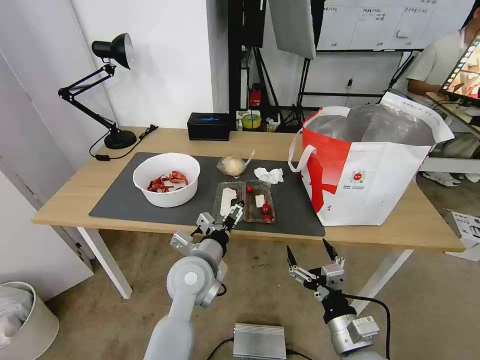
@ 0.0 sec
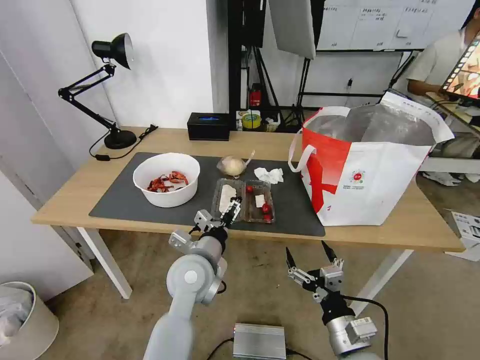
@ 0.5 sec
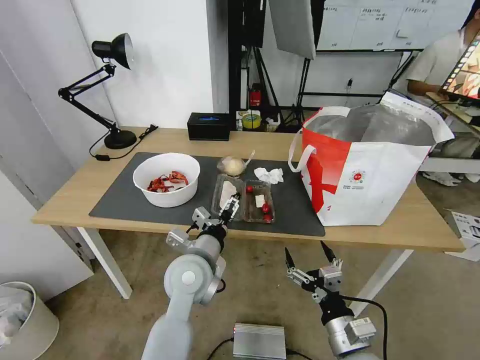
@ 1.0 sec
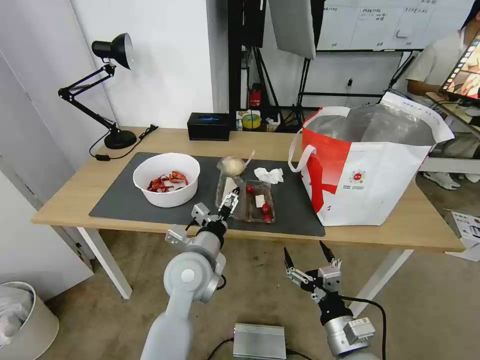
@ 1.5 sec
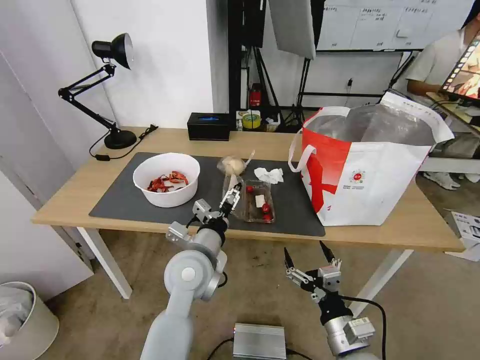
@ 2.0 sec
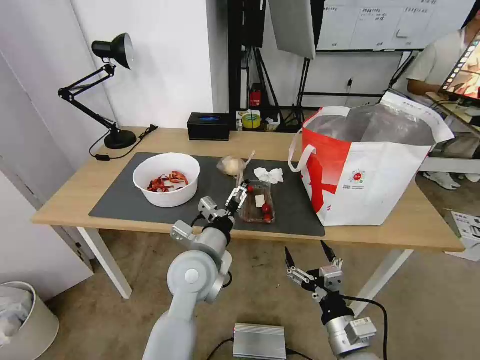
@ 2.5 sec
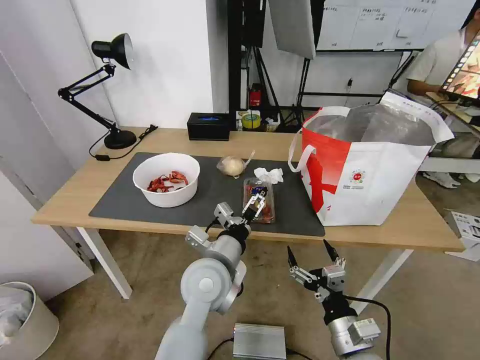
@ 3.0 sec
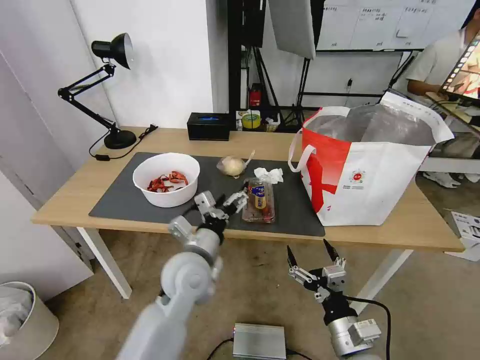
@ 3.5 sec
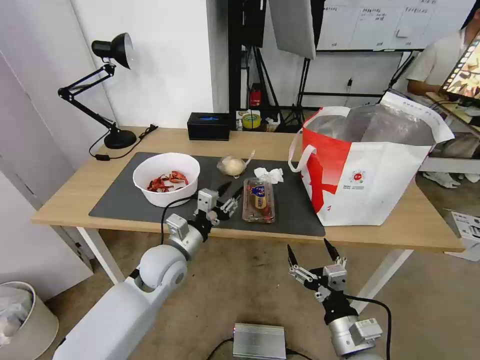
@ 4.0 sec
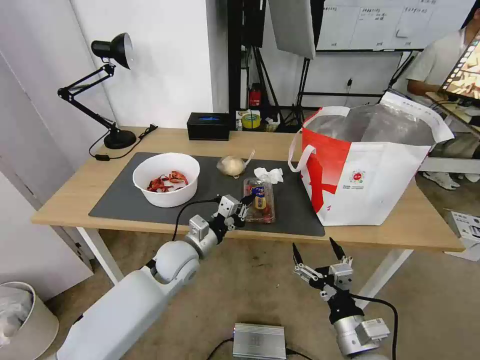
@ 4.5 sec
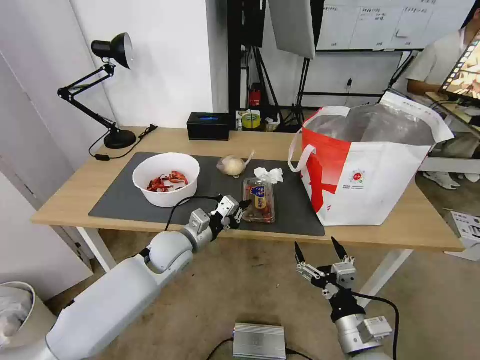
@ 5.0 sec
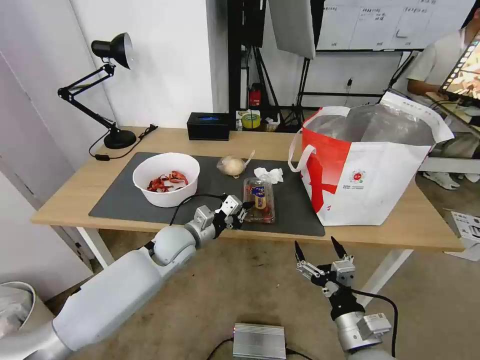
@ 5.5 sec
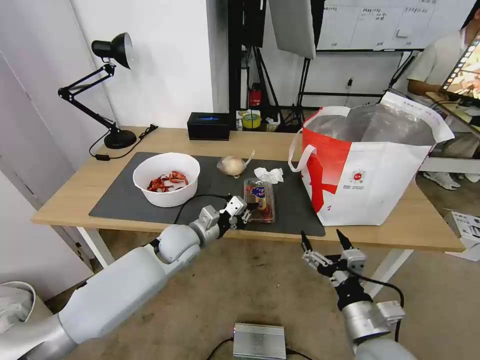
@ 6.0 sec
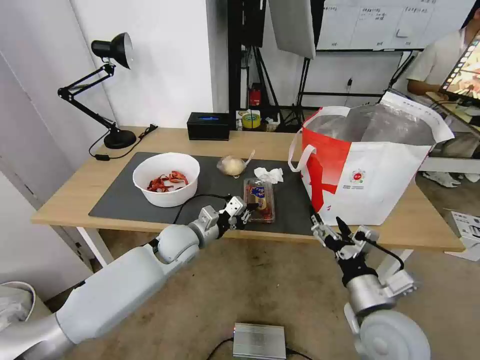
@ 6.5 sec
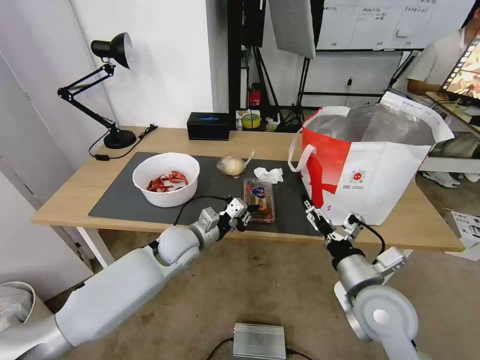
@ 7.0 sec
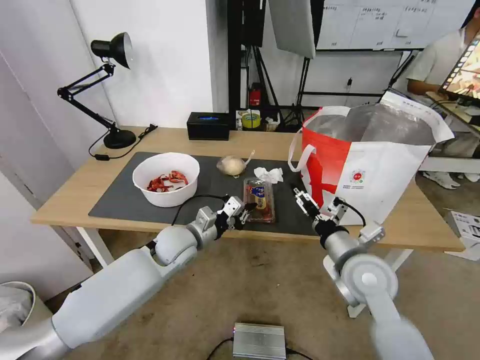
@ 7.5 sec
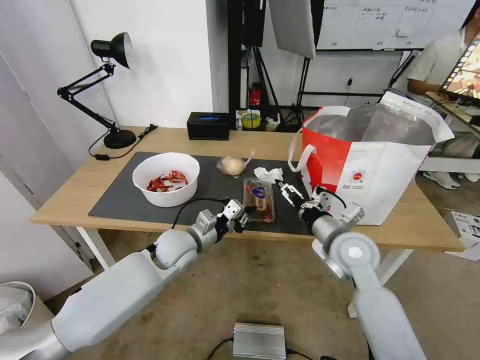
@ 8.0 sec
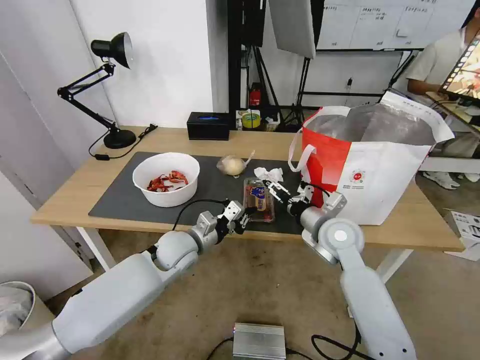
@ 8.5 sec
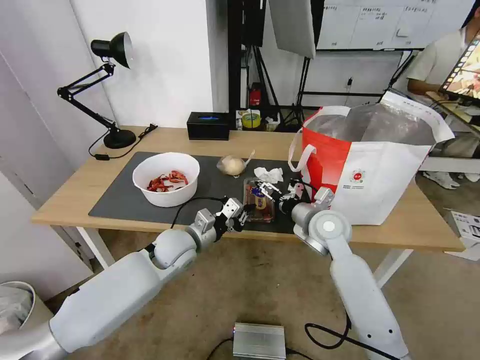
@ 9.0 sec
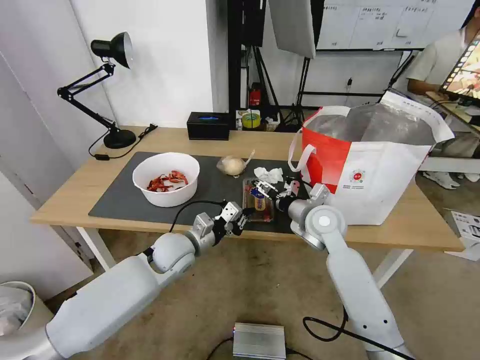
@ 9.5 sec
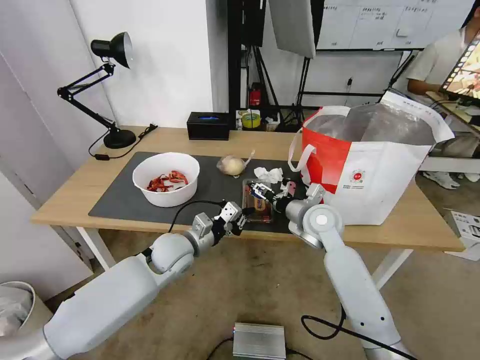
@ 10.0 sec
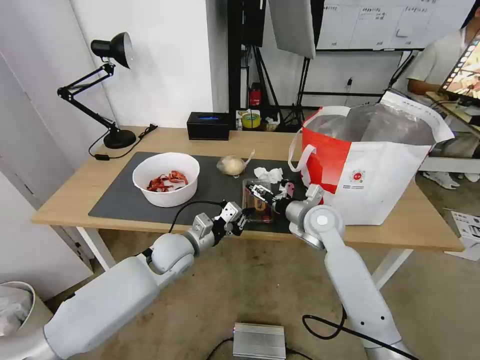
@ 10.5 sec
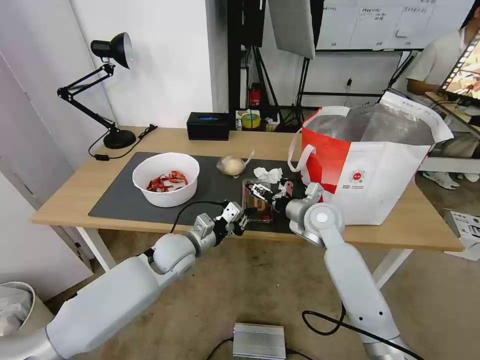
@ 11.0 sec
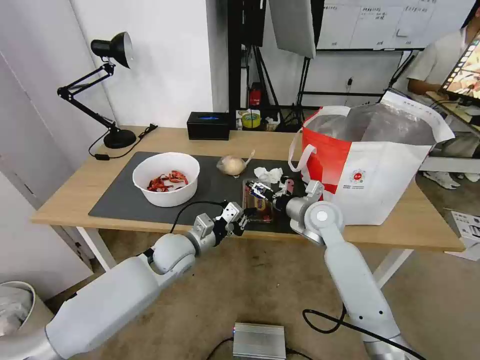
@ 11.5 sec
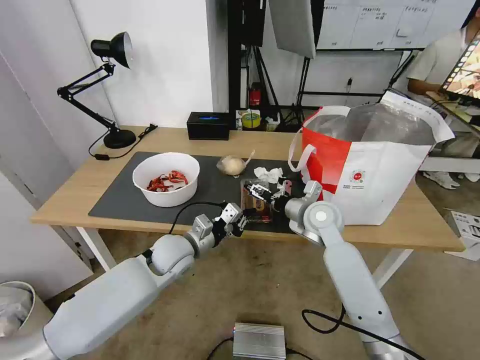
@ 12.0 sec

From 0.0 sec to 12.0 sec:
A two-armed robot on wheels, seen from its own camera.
Task of the whole recording: Pick up the trash from the table and place it into the takeout bag.
From 0.0 sec to 2.0 sec: The grippers make only small movements.
From 2.0 sec to 4.0 sec: The left gripper shifts about 5 cm to the left, and closes up.
From 4.0 sec to 6.0 sec: The left gripper is displaced forward by roughly 5 cm, and closes its fingers.
From 6.0 sec to 8.0 sec: The right gripper heads forward, covering approximately 20 cm.
From 8.0 sec to 10.0 sec: The right gripper heads forward, covering about 10 cm.
From 10.0 sec to 12.0 sec: The grippers stay close to where they were, moving slightly.

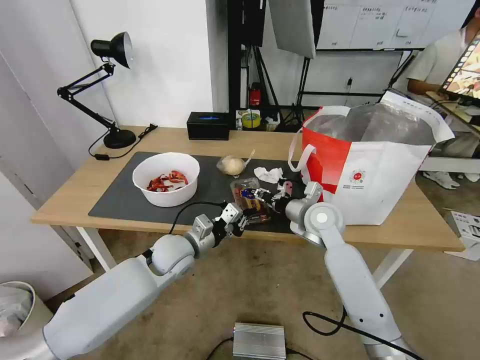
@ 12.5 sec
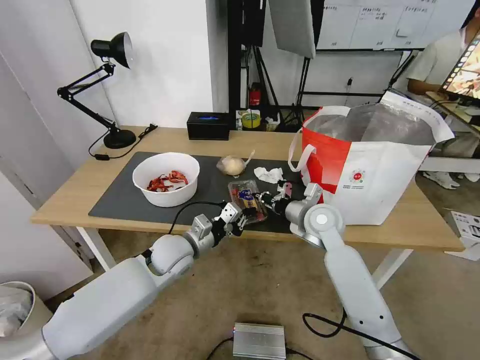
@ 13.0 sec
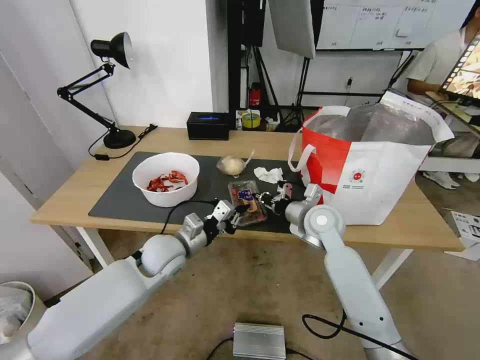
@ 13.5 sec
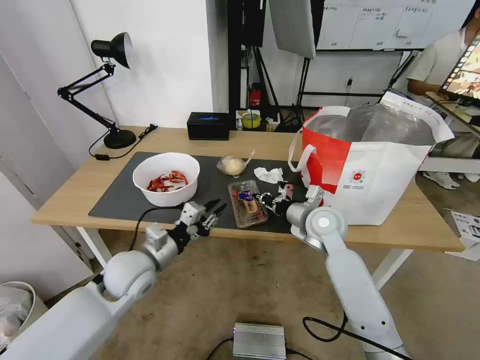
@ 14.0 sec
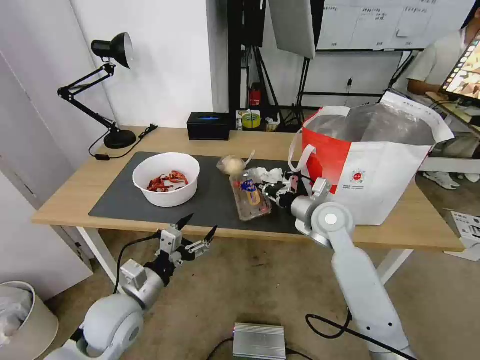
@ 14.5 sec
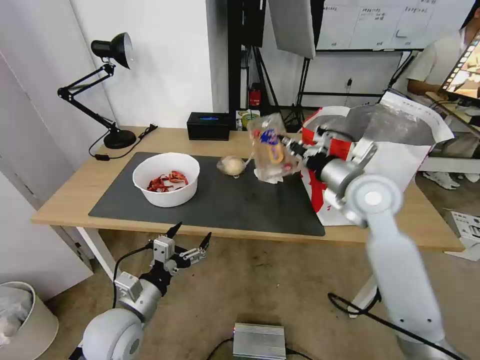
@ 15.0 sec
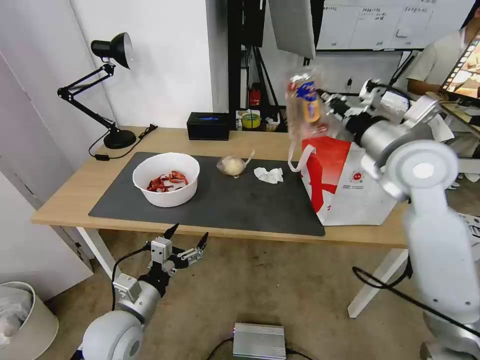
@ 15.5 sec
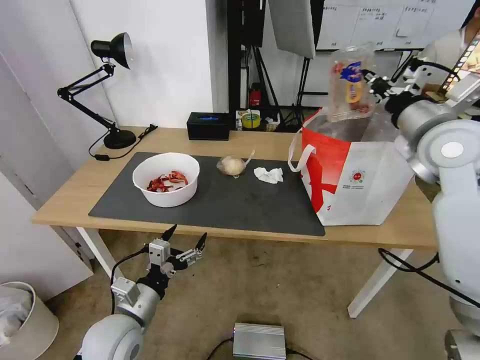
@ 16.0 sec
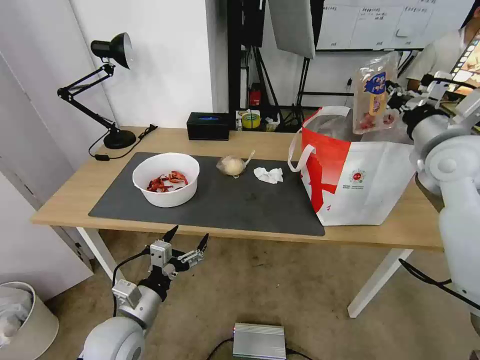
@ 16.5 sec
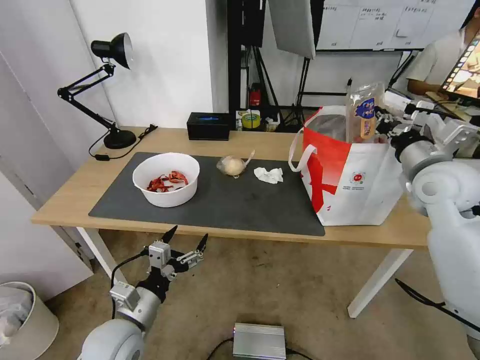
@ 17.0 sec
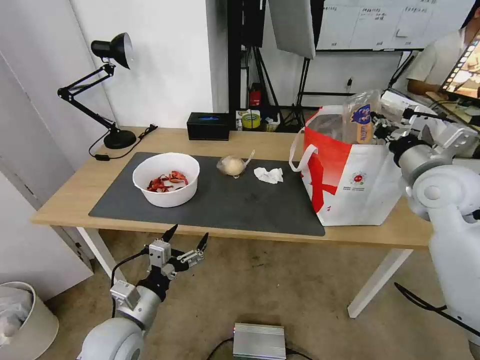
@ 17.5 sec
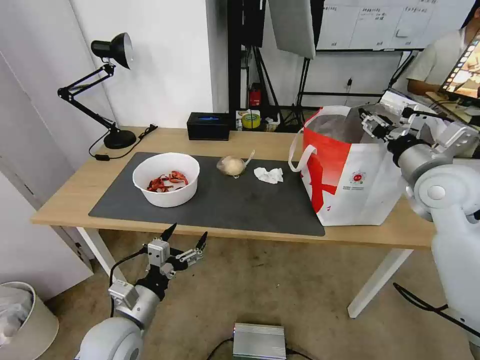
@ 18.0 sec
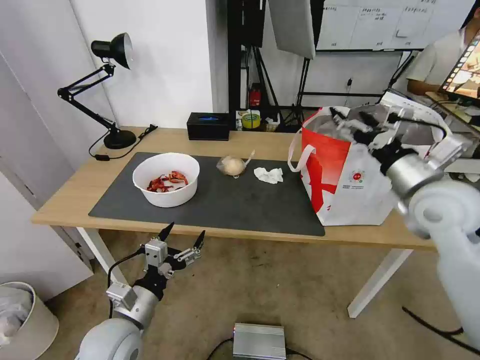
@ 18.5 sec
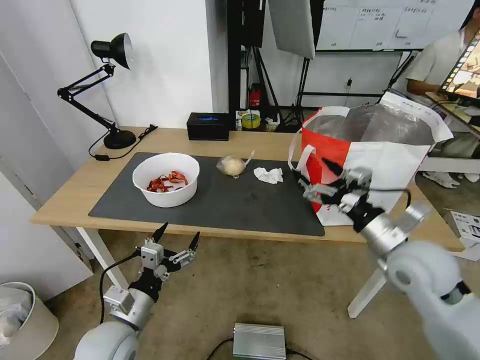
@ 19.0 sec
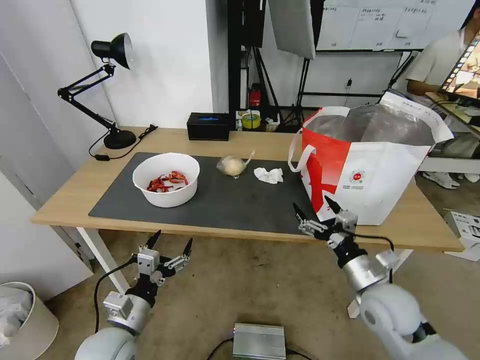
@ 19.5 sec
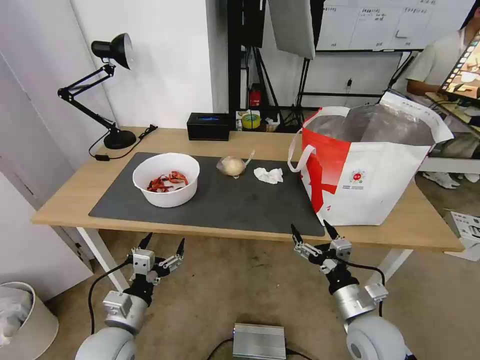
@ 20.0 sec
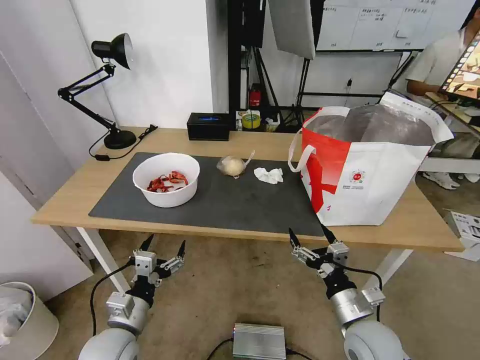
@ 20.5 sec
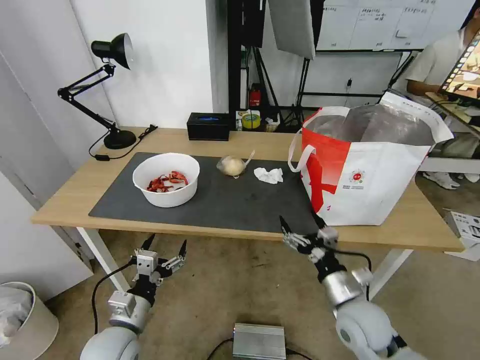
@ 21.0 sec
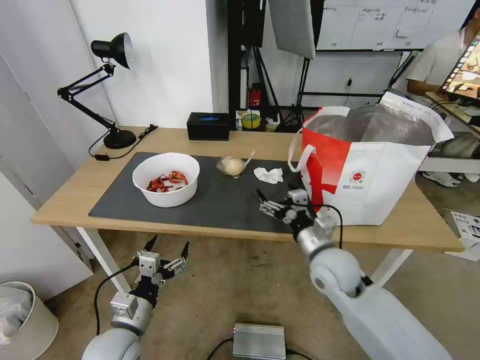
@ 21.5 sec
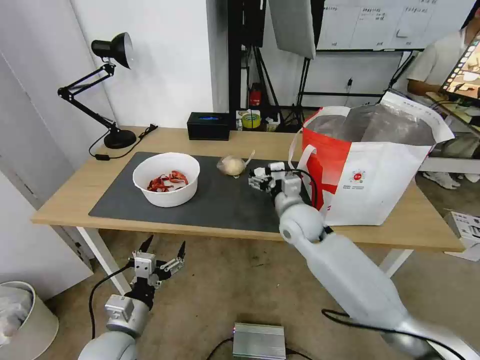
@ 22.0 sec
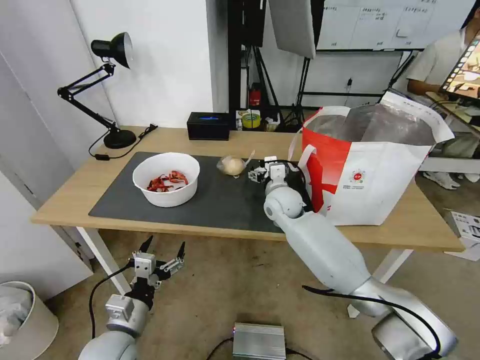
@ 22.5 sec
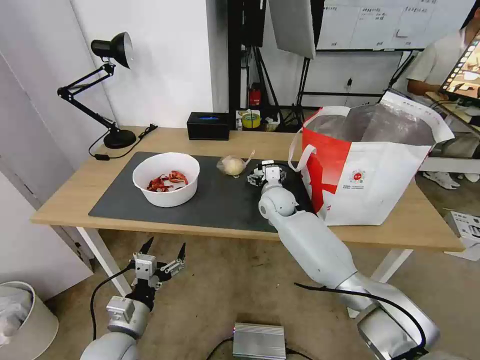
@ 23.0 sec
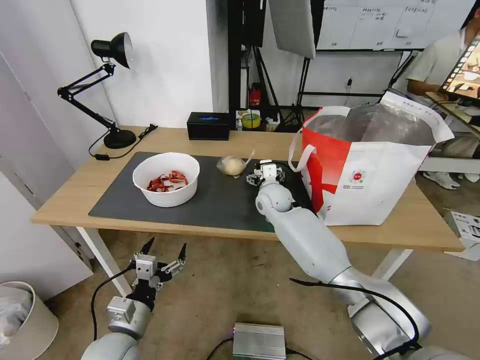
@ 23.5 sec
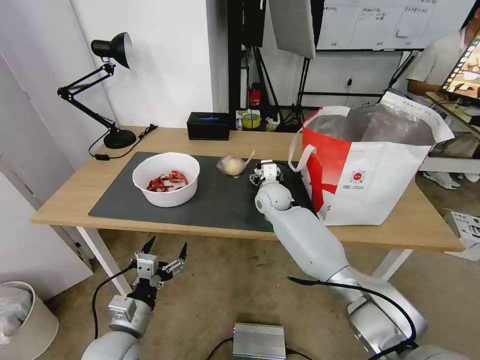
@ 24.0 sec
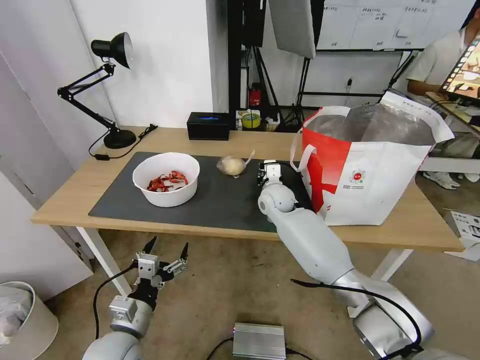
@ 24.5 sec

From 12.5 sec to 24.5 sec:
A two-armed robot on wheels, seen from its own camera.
Task of the whole recording: Pick up the trash from the table and place it into the takeout bag.
From 12.5 sec to 14.5 sec: The left gripper moves backward and to the left, some 15 cm, and opens its fingers. The right gripper closes.
From 14.5 sec to 16.5 sec: The right gripper heads upward and to the right, covering approximately 25 cm.
From 16.5 sec to 18.5 sec: The right gripper goes some 5 cm backward, and opens its fingers.
From 18.5 sec to 20.5 sec: The right gripper goes about 30 cm downward and backward.
From 20.5 sec to 22.5 sec: The right gripper travels forward and to the left by roughly 35 cm.
From 22.5 sec to 24.5 sec: The right gripper closes up.

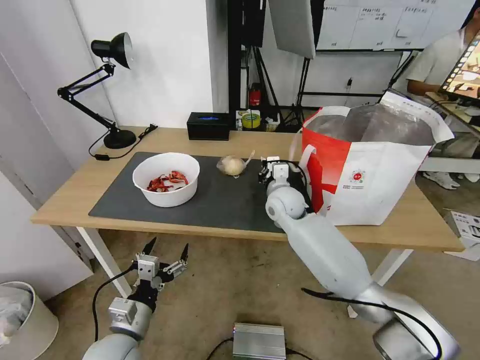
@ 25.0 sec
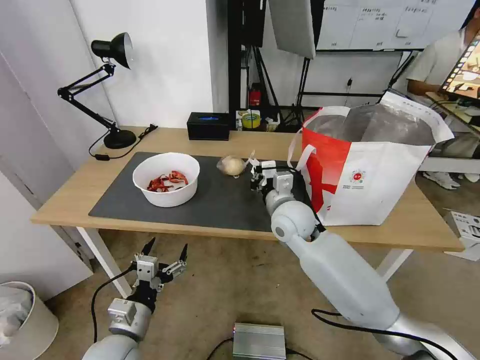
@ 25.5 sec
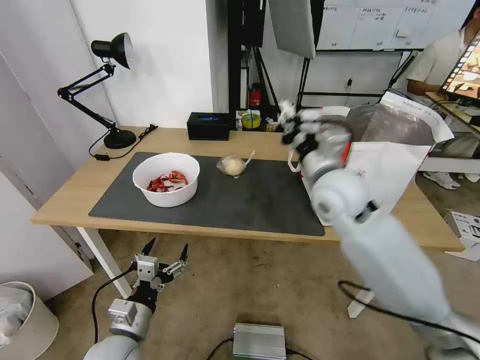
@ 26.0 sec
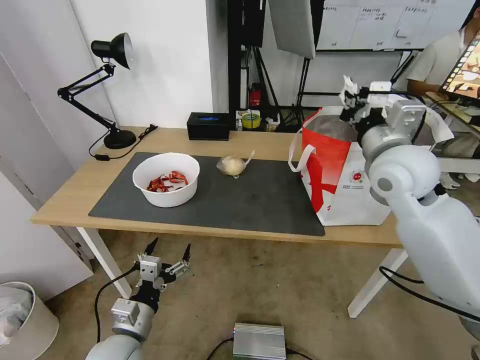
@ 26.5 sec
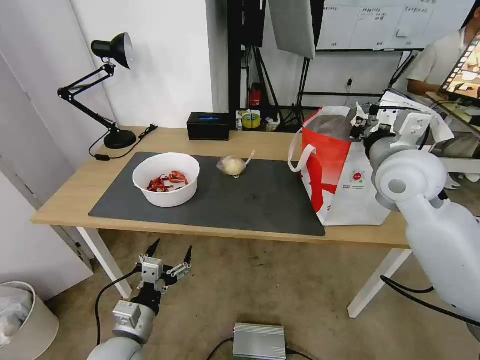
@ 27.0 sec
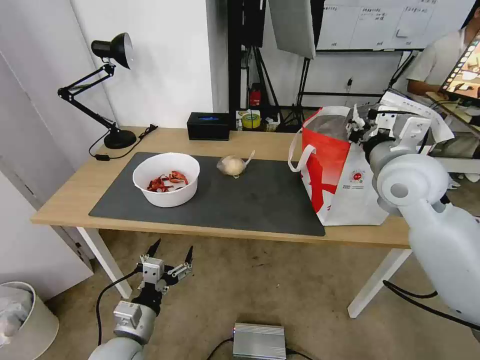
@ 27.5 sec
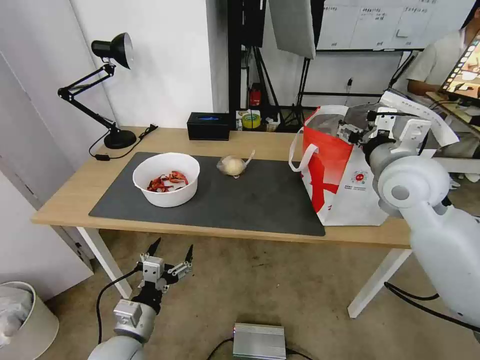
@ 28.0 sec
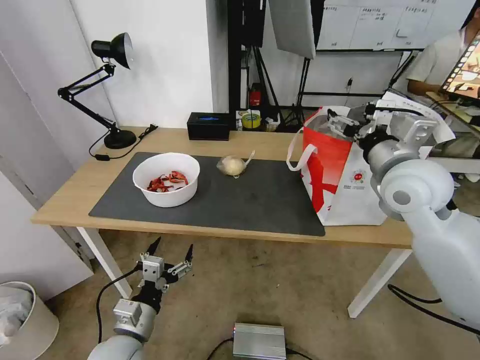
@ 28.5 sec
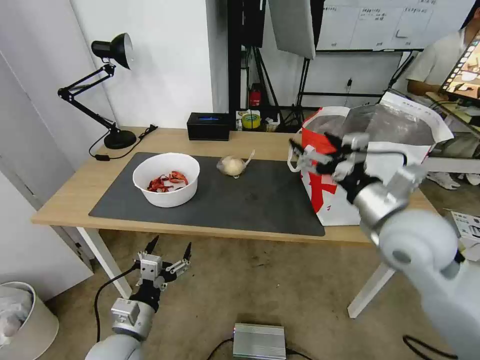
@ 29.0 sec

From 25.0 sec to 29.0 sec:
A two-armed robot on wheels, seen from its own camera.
Task of the whole recording: Pick up the trash from the table and place it into the takeout bag.
From 25.0 sec to 27.0 sec: The right gripper shifts roughly 25 cm upward, to the right and backward.
From 27.0 sec to 29.0 sec: The right gripper shifts approximately 10 cm backward and downward, and opens up.
